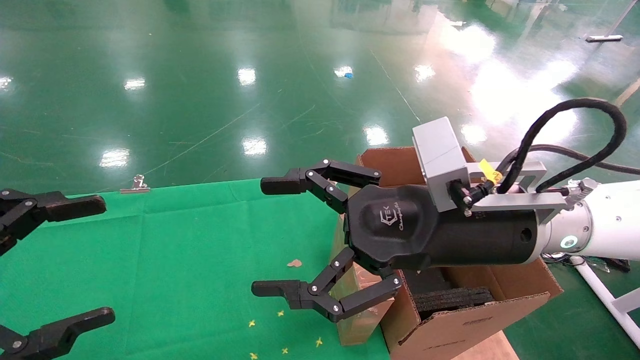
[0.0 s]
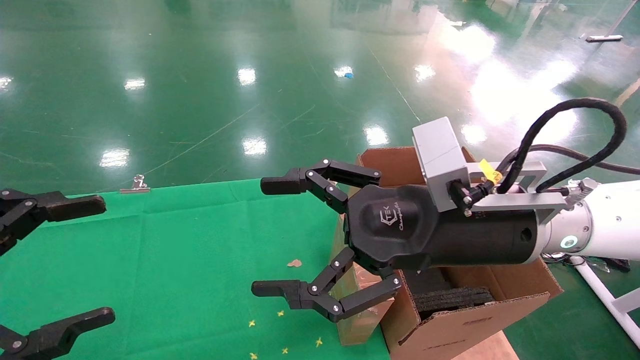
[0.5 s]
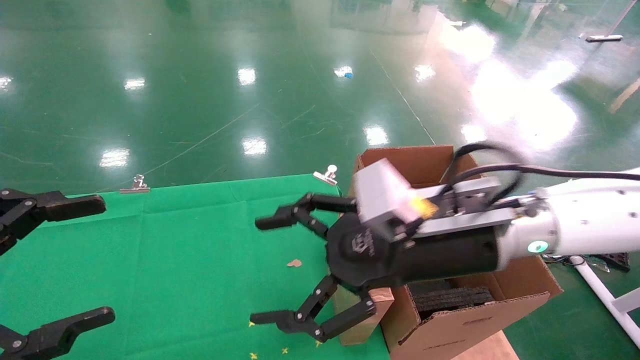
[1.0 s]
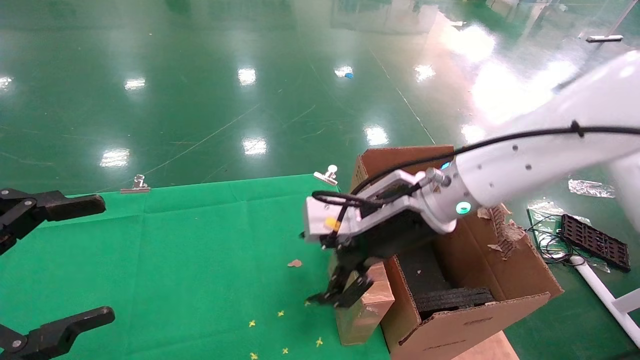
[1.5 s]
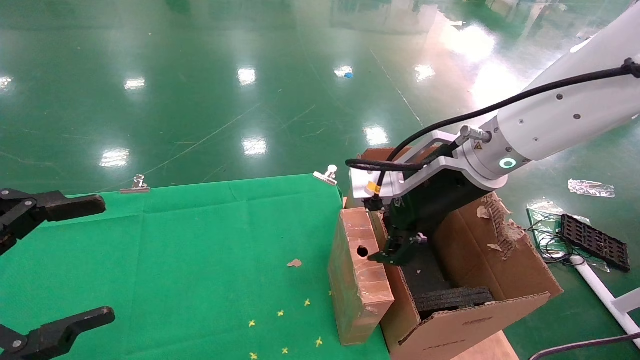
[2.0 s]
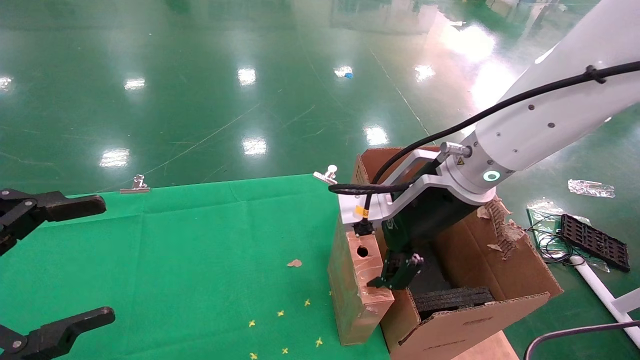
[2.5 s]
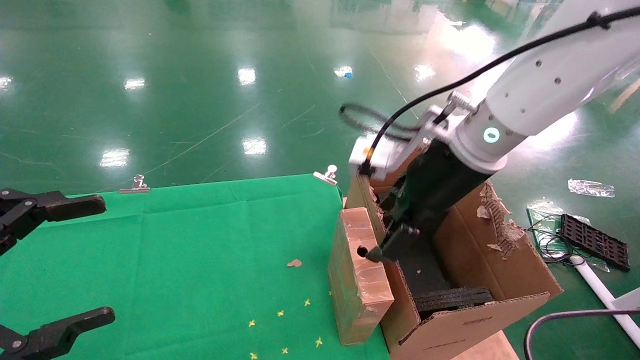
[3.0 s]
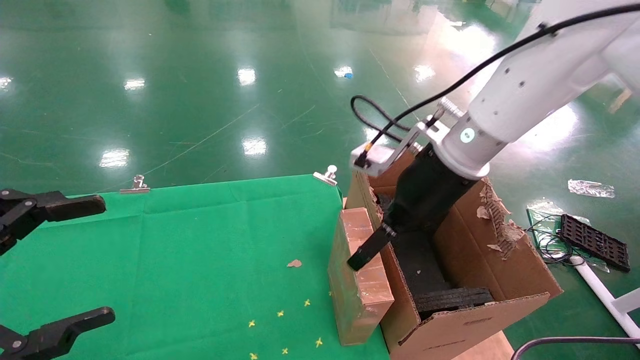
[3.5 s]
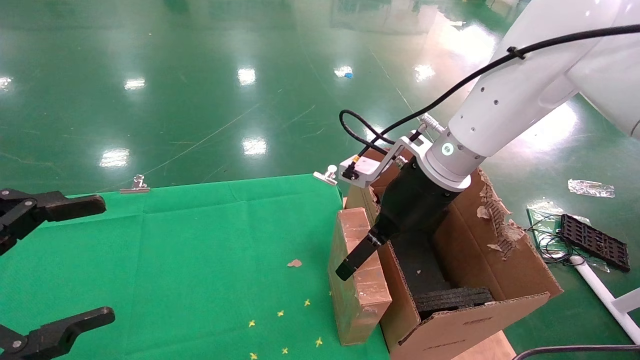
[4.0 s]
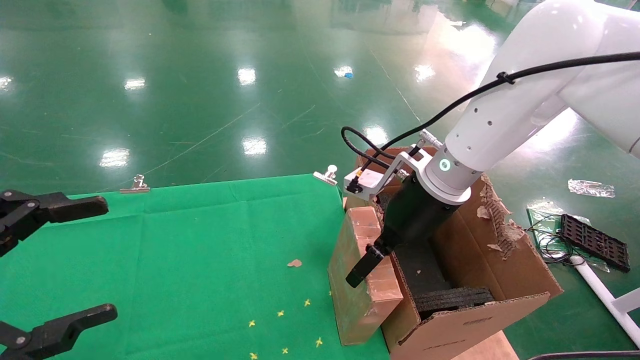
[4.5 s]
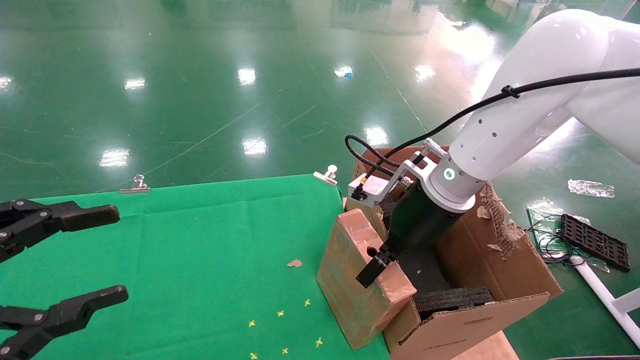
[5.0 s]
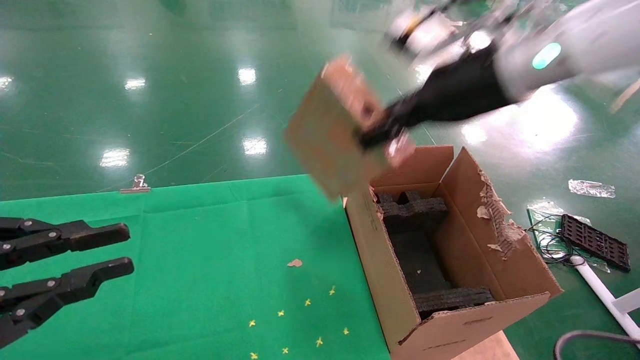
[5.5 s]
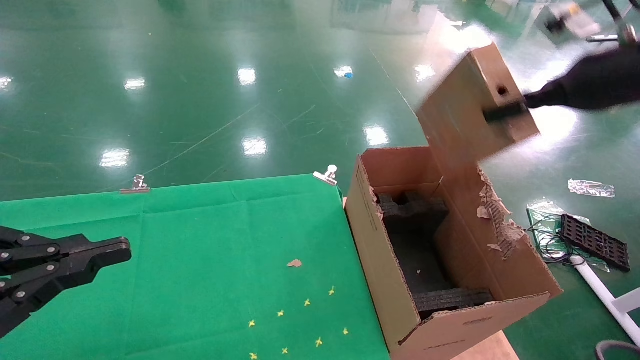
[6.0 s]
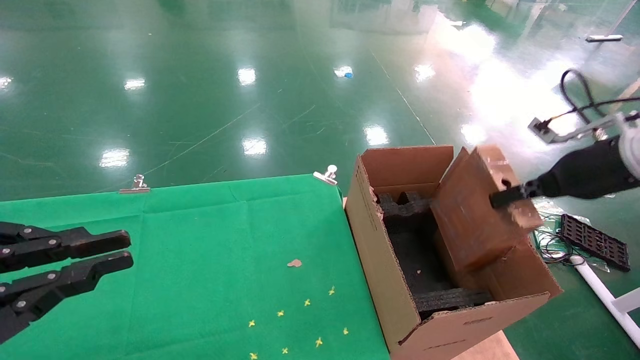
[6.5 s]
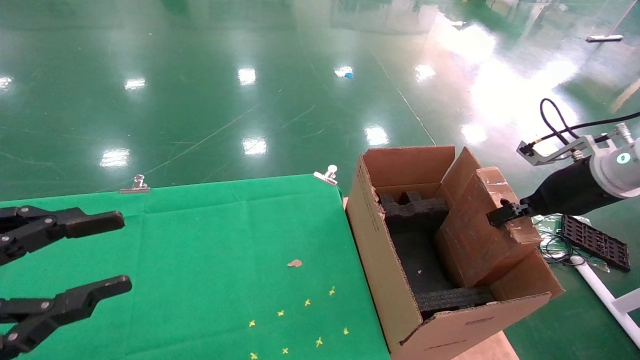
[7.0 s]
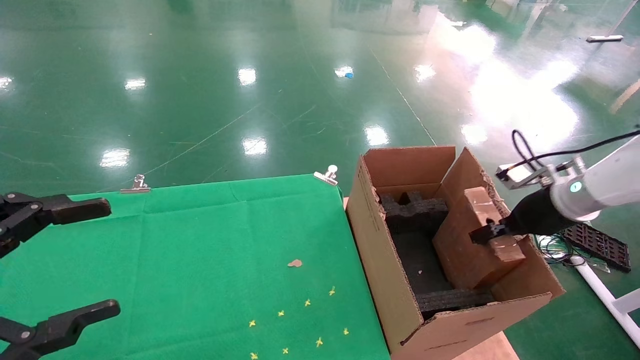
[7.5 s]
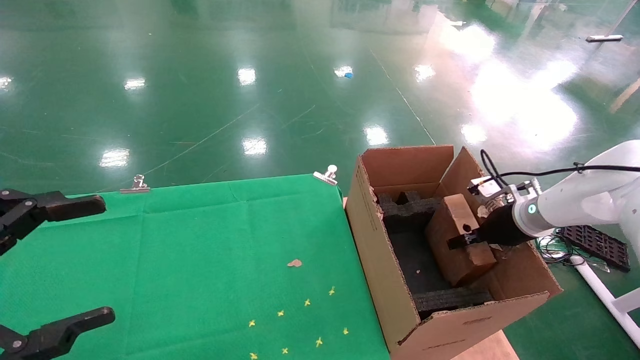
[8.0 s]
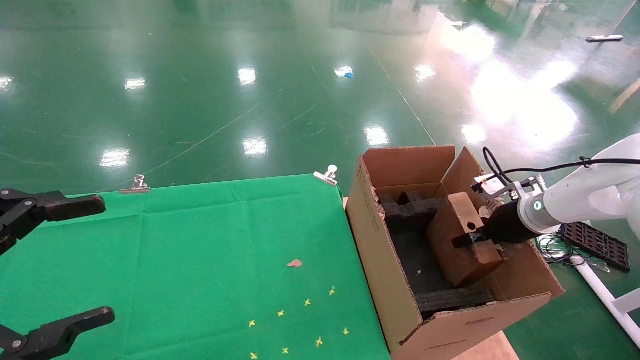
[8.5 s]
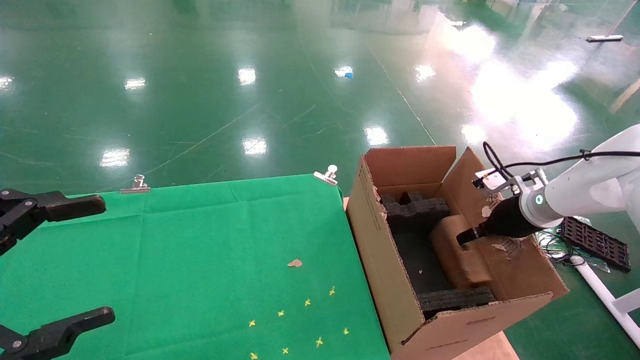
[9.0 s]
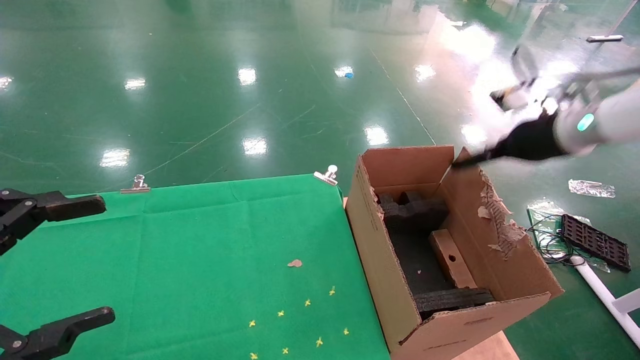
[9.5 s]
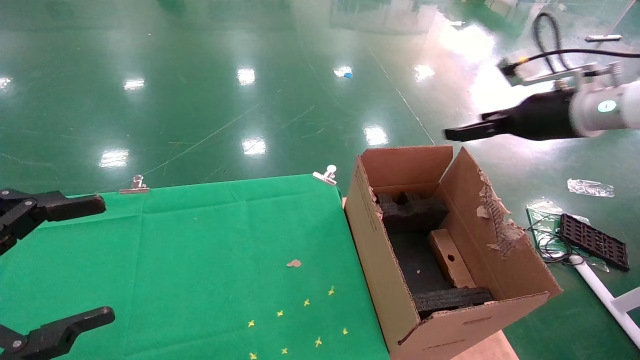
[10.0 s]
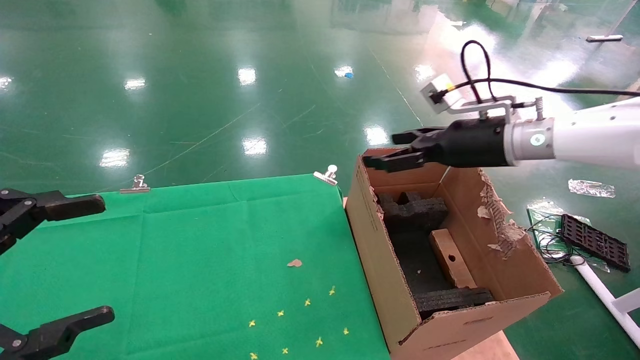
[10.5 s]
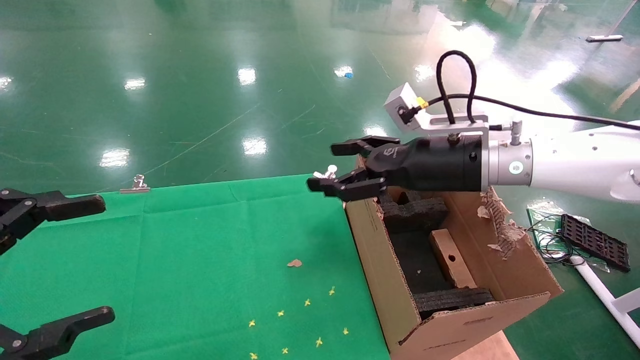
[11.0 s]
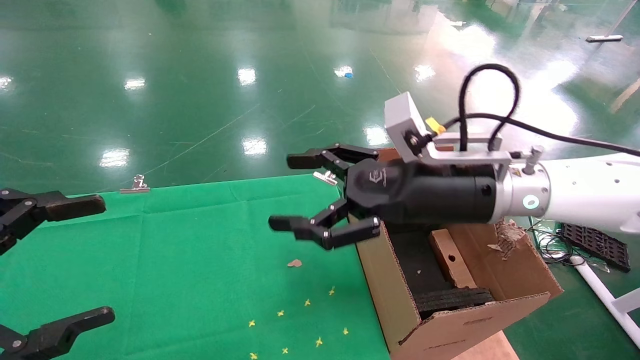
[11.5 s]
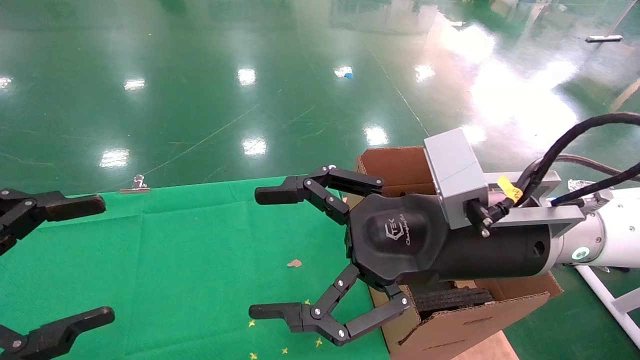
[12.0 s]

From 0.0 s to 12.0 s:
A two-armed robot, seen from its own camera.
Task of the whole recording: using a robotic arm to pick up a cardboard box and palace it the carton.
Step, from 1.0 s to 5.0 s: Pick up the mouse and the power cord paper box.
Step, from 5.5 s to 9.5 s: Place the mouse and the power cord paper box into the container.
From 0.0 s to 2.0 s: The right gripper heads forward, covering approximately 5 cm.
From 4.0 s to 6.0 s: The left gripper closes; the right gripper moves to the right and upward, roughly 25 cm, and closes.
From 6.0 s to 8.0 s: The left gripper opens up; the right gripper shifts approximately 25 cm downward and forward.
From 8.0 s to 10.0 s: The right gripper shifts approximately 15 cm upward, and opens its fingers.
From 10.0 s to 12.0 s: The right gripper heads to the left and backward, covering some 25 cm.

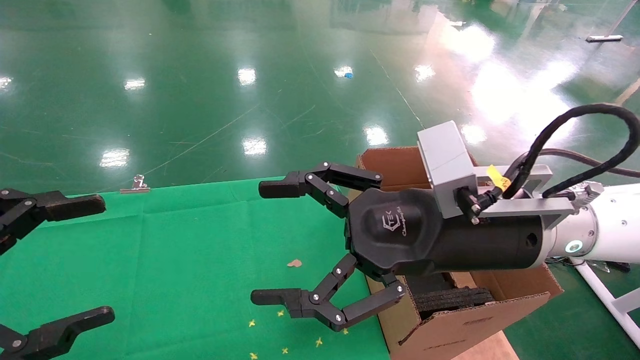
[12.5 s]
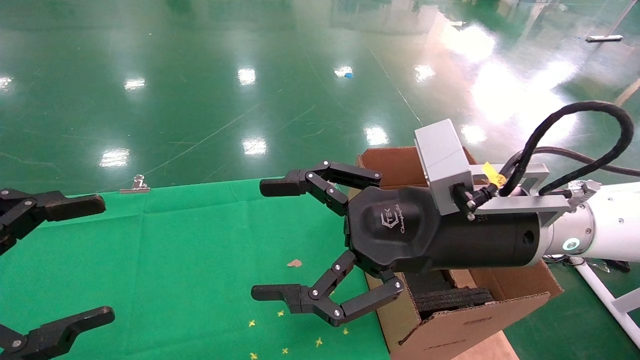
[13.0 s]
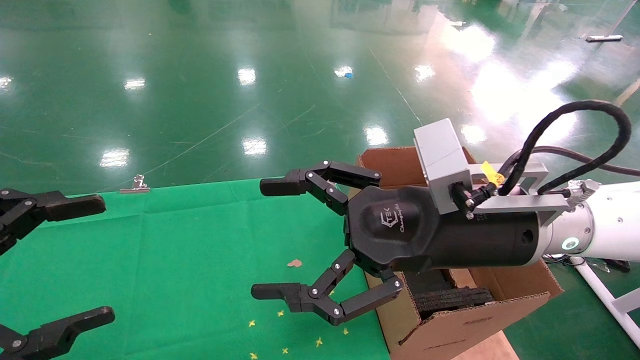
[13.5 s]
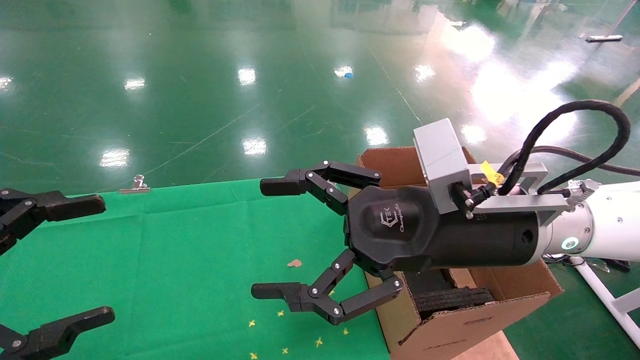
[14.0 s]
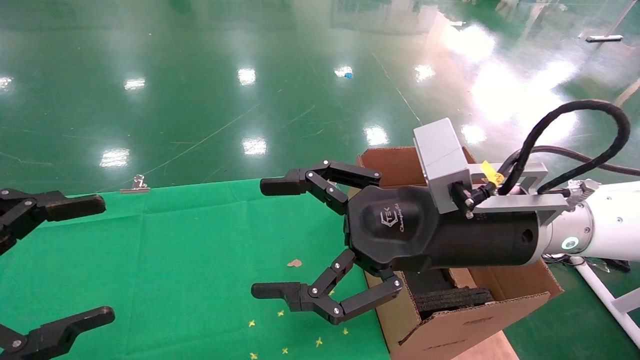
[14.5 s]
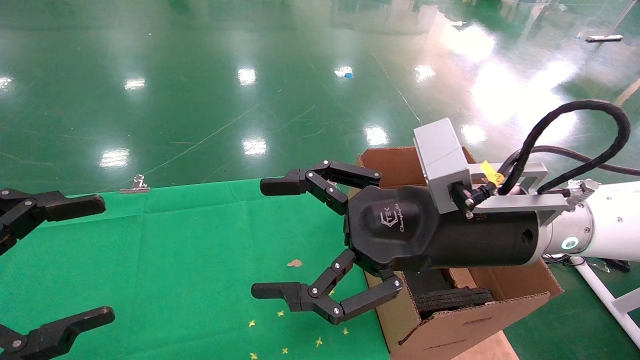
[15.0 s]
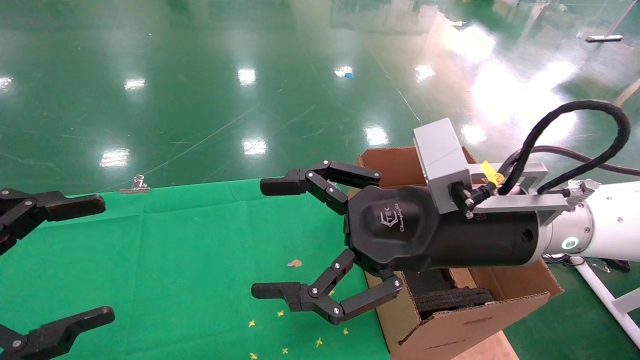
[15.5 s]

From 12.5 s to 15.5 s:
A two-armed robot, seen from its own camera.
Task of the whole recording: using a robotic arm to pick up a cardboard box and palace it the carton.
From 12.5 s to 15.5 s: Neither gripper changes place.
